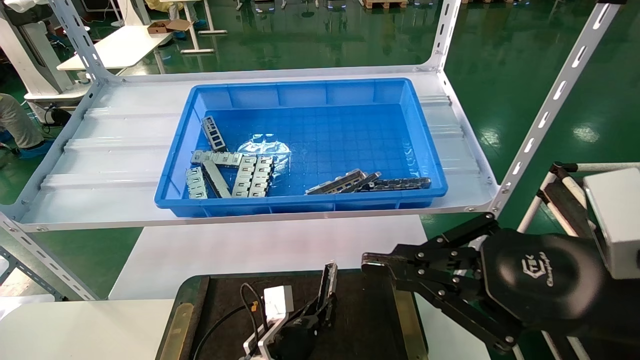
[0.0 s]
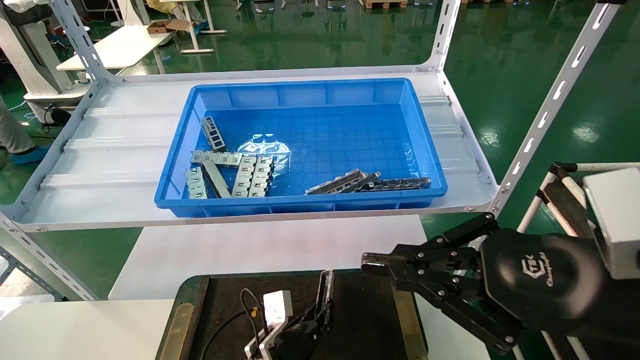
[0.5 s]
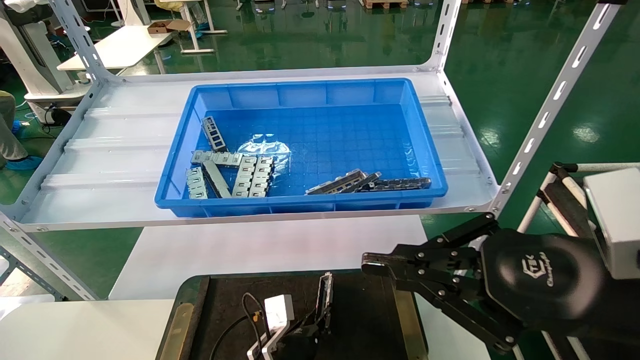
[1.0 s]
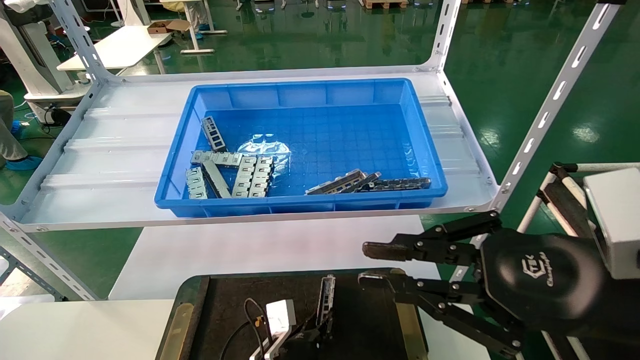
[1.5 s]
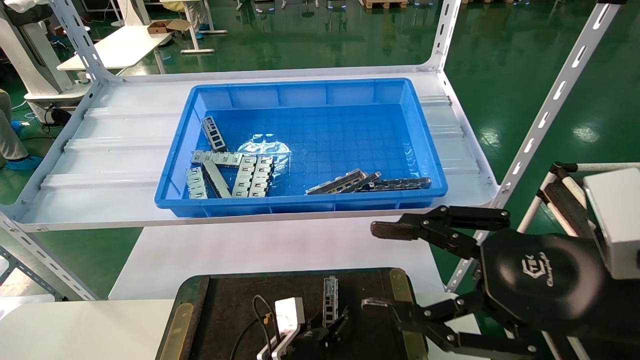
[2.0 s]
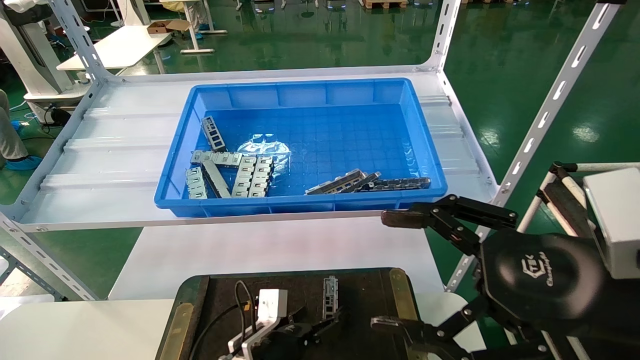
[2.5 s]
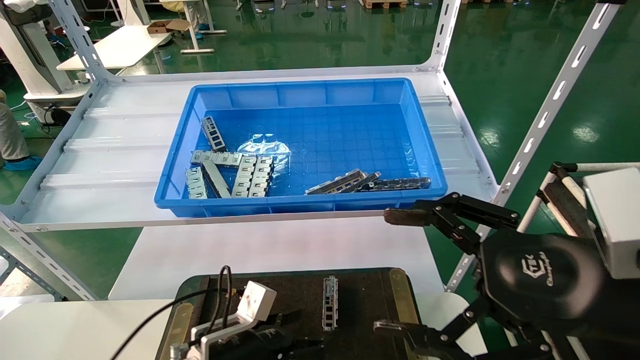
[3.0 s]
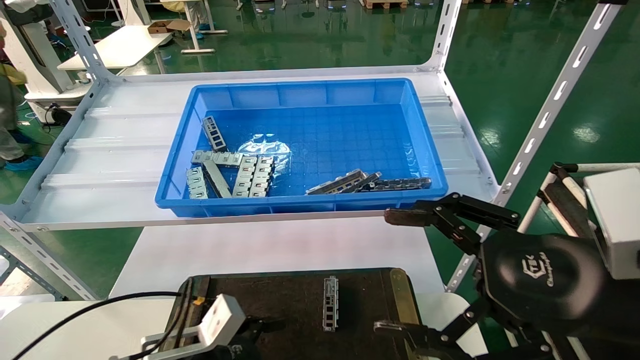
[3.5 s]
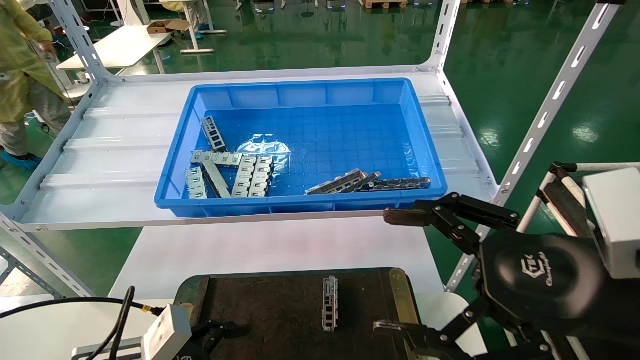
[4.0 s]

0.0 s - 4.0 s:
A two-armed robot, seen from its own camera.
Task of the whole recording: Grasp the part with one hand and place it on the black container.
0.0 s - 2.0 s: The right gripper opens. The left gripper opens.
2.0 s - 4.0 s: The right gripper opens its fingers. The left gripper heads to the left, upward and backward, covering about 25 cm, and opens up.
